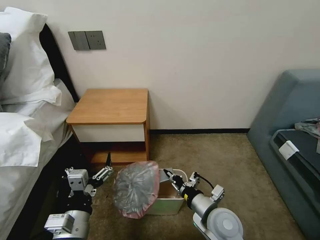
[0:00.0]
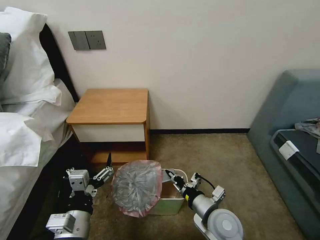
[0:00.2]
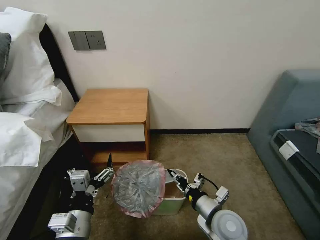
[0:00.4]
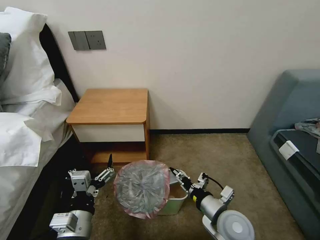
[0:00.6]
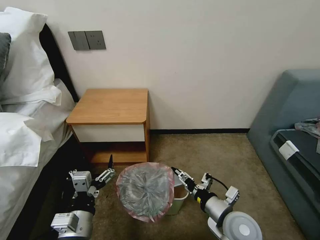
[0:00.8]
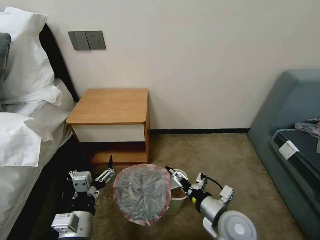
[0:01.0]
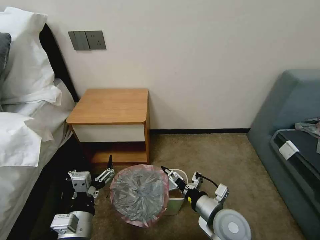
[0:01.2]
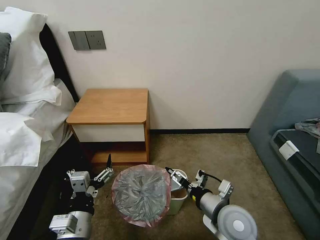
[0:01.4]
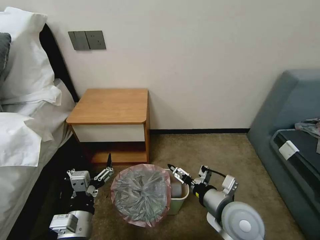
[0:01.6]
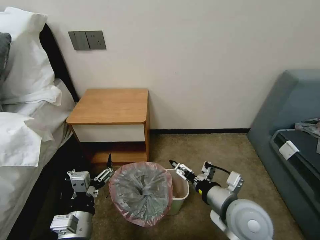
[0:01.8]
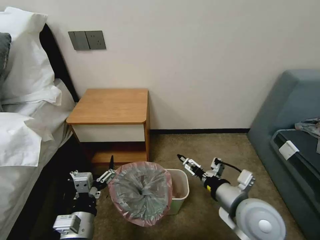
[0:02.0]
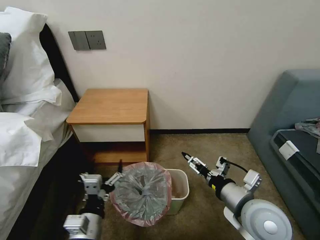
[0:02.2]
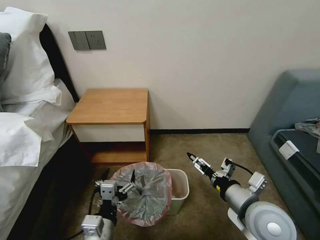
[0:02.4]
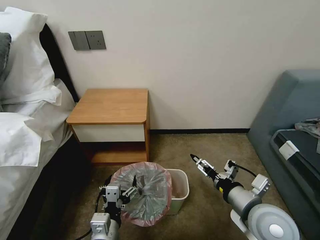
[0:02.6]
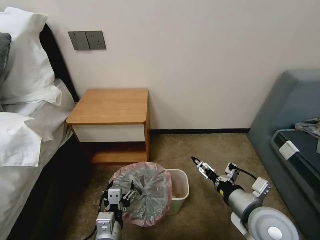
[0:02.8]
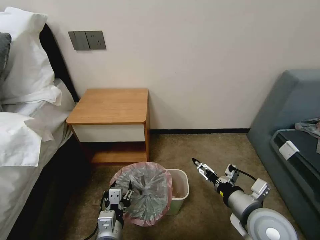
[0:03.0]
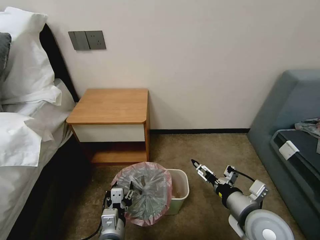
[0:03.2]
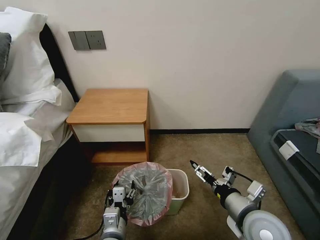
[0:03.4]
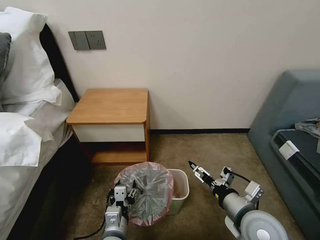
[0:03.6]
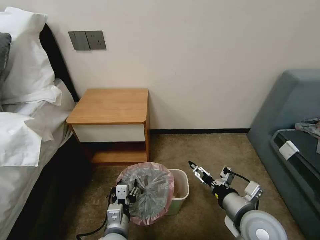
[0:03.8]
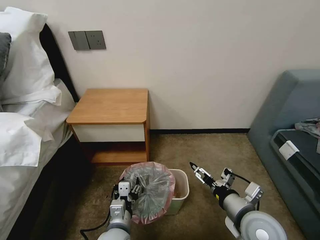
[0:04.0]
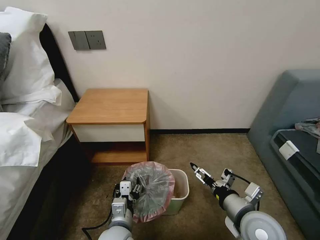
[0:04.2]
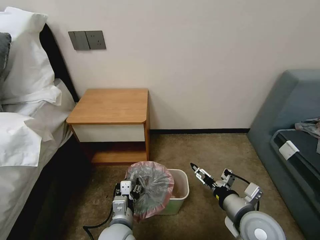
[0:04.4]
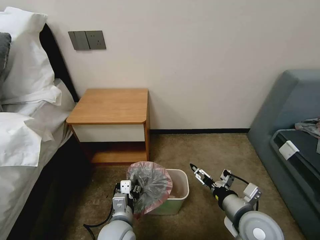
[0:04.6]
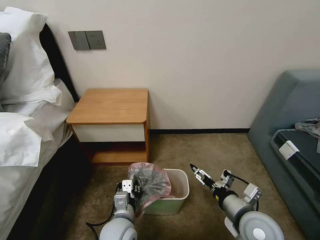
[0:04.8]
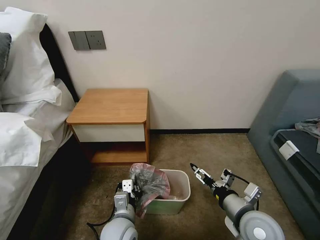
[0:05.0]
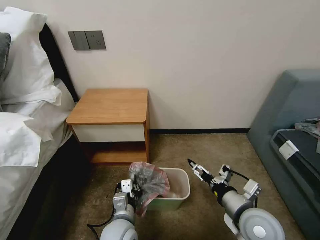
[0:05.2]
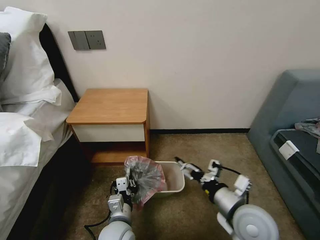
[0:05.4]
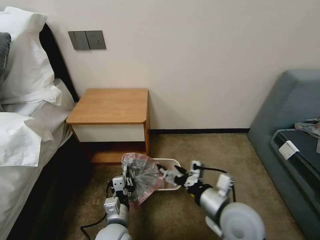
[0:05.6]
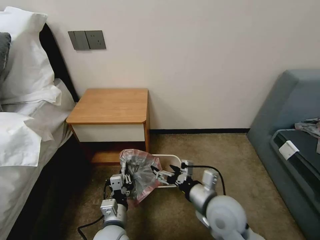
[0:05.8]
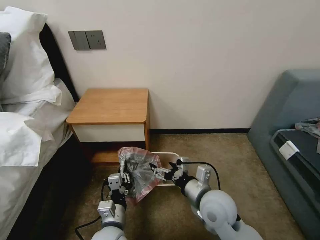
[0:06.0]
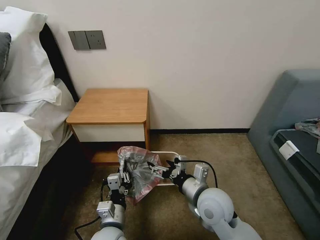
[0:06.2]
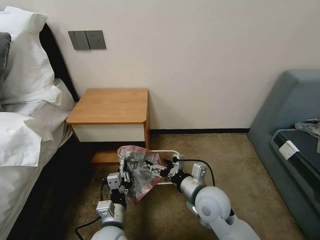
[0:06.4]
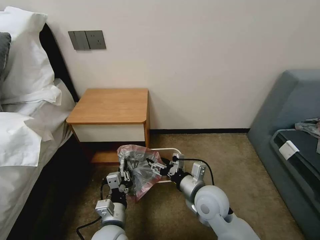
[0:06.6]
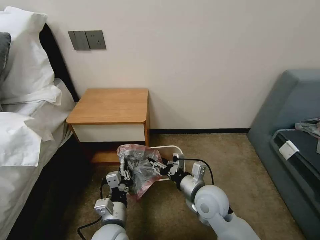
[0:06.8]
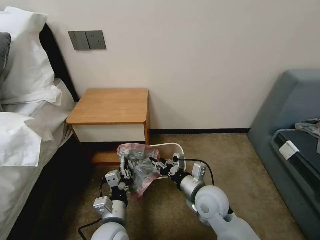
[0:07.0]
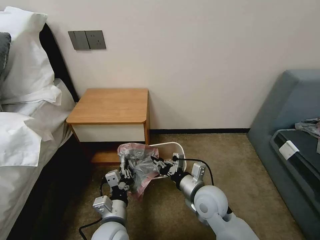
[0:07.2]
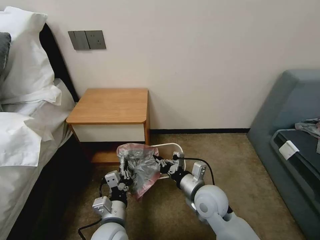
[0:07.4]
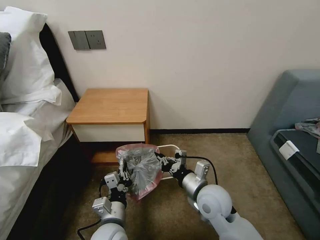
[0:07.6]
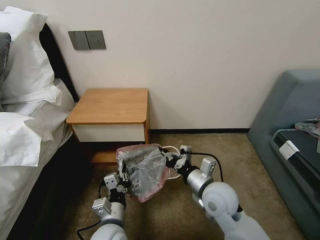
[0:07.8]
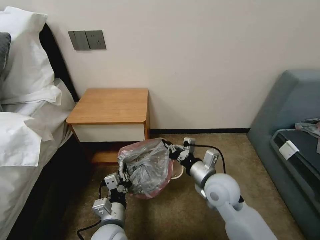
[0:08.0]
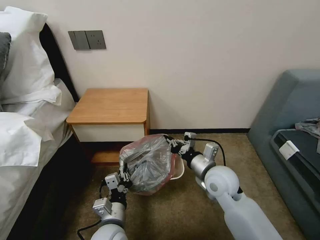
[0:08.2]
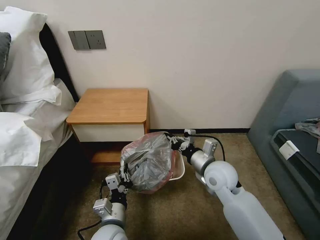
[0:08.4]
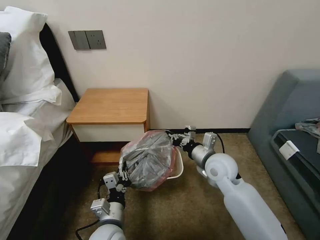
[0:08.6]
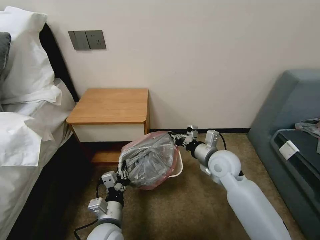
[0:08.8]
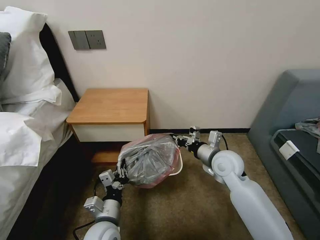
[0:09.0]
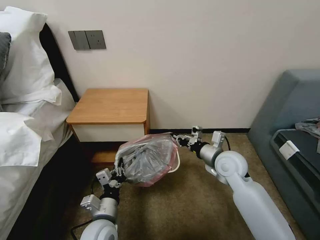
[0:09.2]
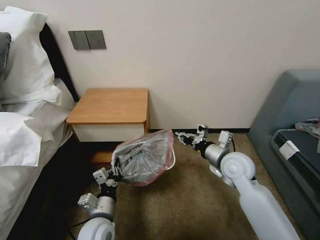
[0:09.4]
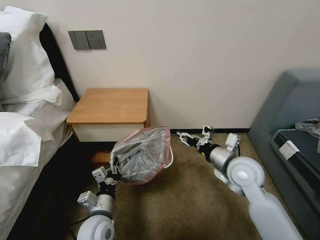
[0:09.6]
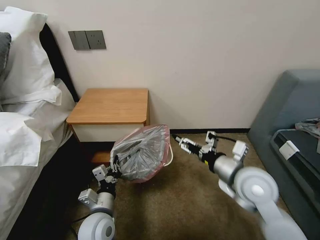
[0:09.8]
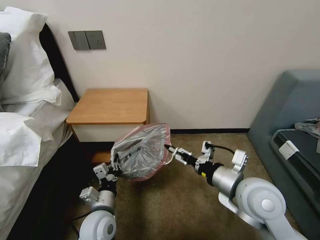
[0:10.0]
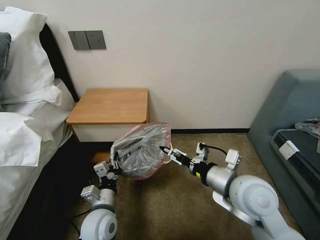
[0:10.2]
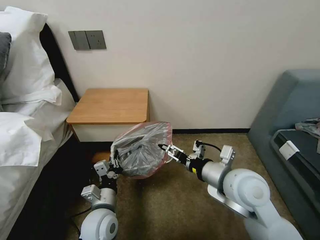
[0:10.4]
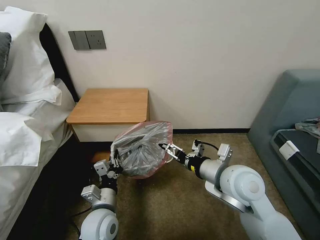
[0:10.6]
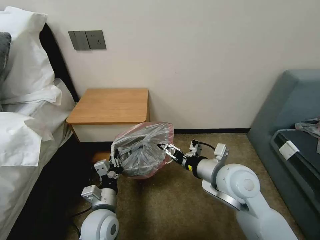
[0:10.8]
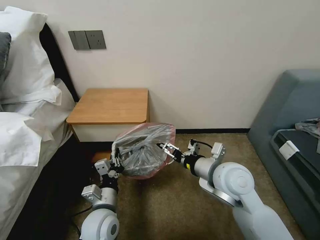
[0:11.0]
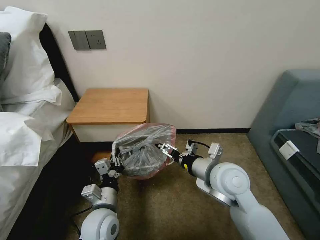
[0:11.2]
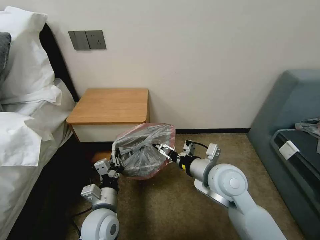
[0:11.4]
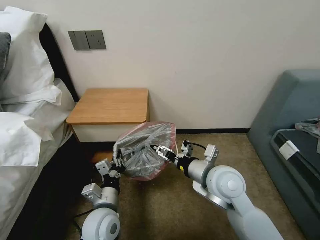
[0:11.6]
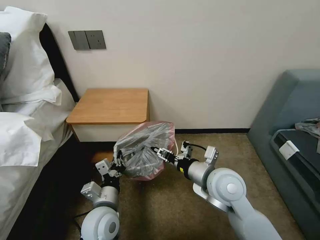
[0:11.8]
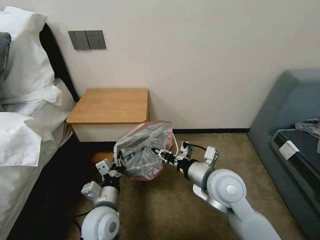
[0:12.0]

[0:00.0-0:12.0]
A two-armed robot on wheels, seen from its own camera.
Task of the whole recording: Pick up the garbage bag from the table and place it over the trash can.
0:00.0 to 0:01.6: The right gripper is displaced upward by approximately 5 cm, and opens.
0:01.6 to 0:03.0: The right gripper travels to the right by approximately 5 cm. The left gripper heads to the right and downward, covering some 10 cm, and closes its fingers.
0:03.0 to 0:04.4: The left gripper shifts by some 5 cm.
0:04.4 to 0:06.0: The right gripper shifts roughly 10 cm to the left and forward; the left gripper closes its fingers.
0:06.0 to 0:07.6: The right gripper closes.
0:07.6 to 0:09.0: The right gripper heads forward and to the right, covering some 10 cm.
0:09.0 to 0:10.4: The right gripper shifts roughly 15 cm backward and upward, and opens up.
0:10.4 to 0:12.0: The right gripper closes.

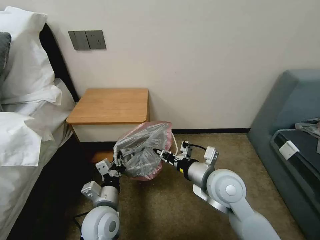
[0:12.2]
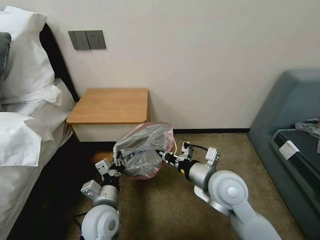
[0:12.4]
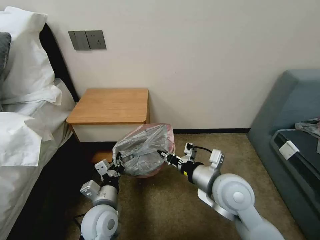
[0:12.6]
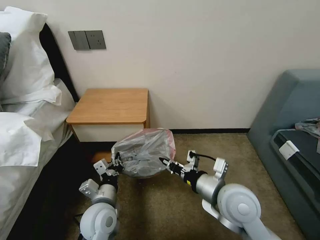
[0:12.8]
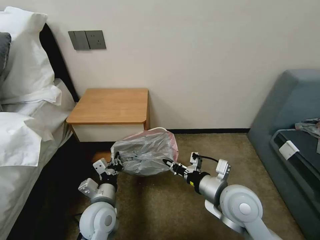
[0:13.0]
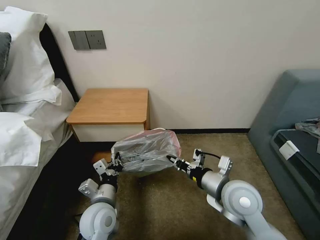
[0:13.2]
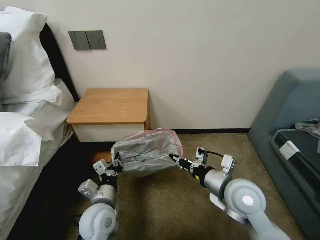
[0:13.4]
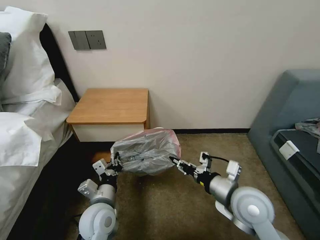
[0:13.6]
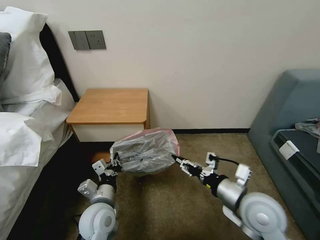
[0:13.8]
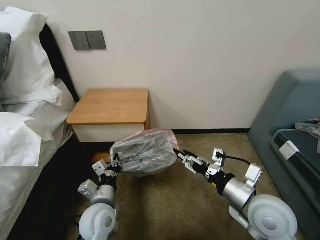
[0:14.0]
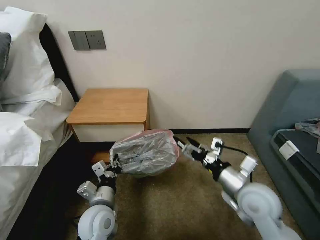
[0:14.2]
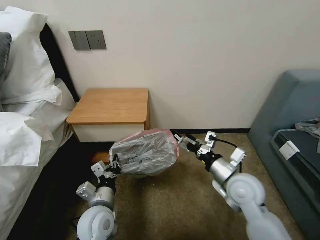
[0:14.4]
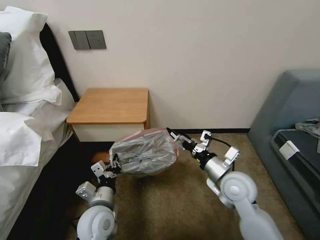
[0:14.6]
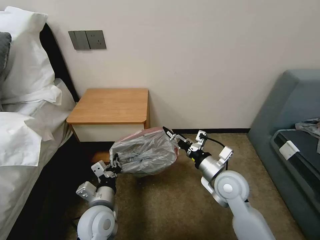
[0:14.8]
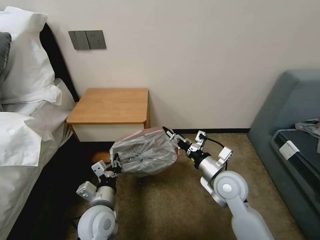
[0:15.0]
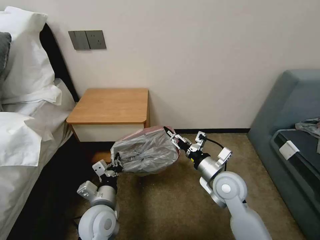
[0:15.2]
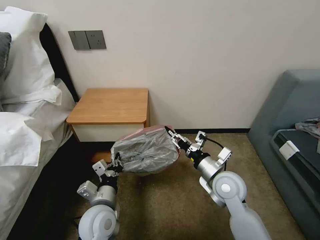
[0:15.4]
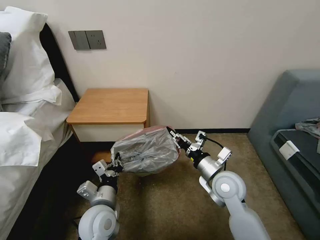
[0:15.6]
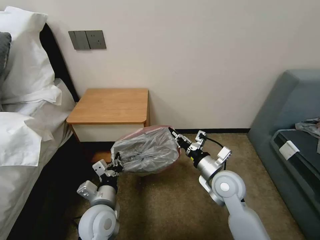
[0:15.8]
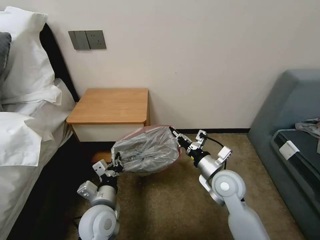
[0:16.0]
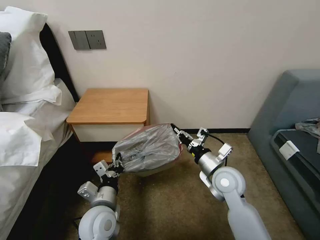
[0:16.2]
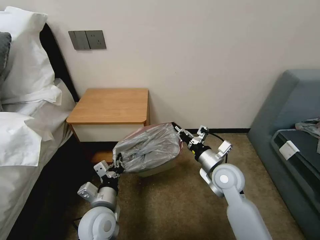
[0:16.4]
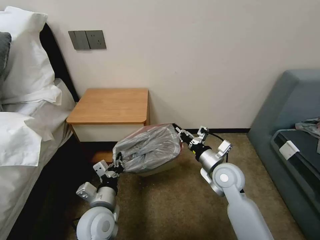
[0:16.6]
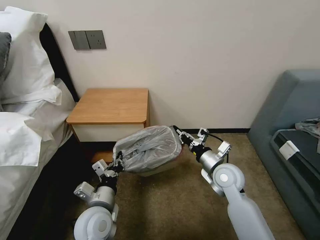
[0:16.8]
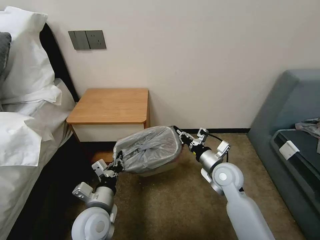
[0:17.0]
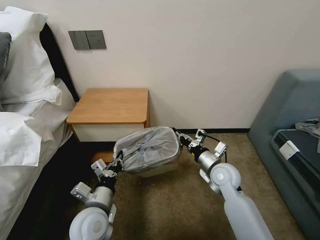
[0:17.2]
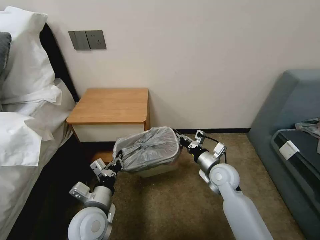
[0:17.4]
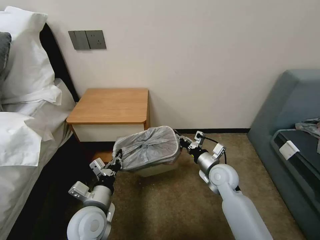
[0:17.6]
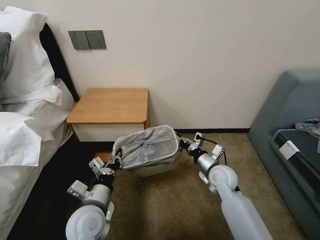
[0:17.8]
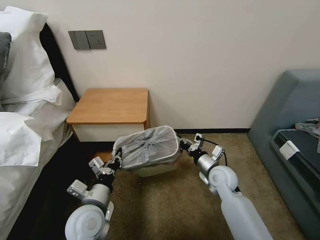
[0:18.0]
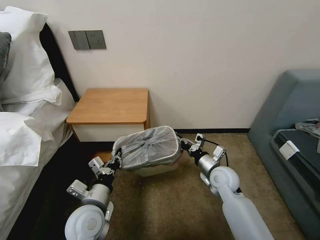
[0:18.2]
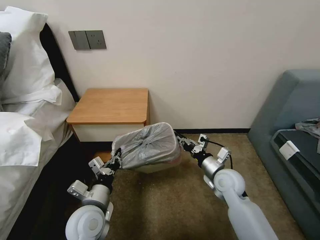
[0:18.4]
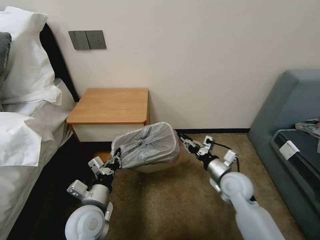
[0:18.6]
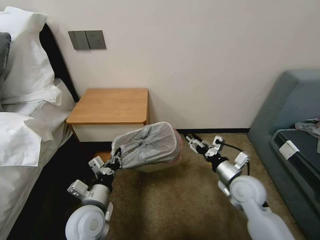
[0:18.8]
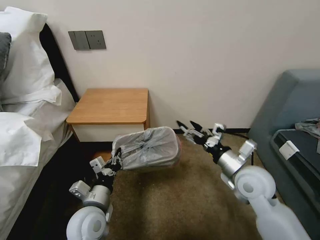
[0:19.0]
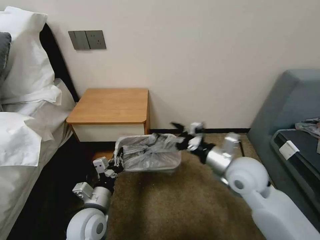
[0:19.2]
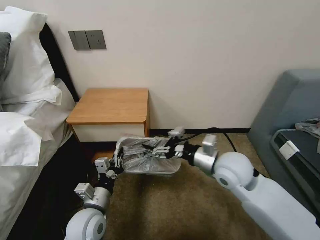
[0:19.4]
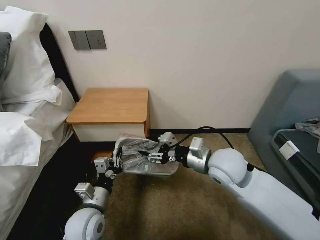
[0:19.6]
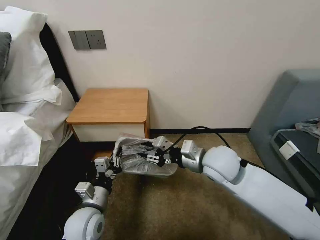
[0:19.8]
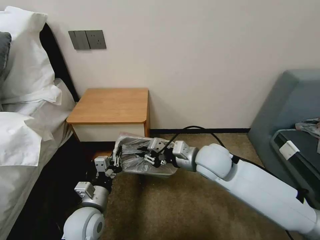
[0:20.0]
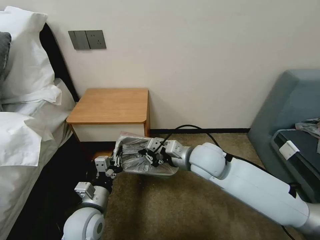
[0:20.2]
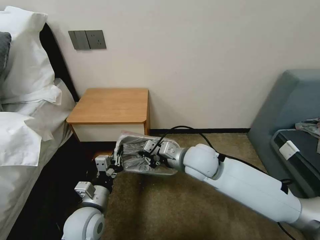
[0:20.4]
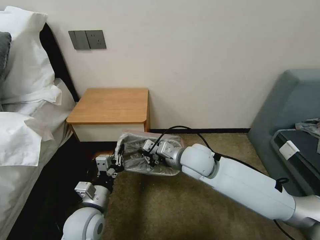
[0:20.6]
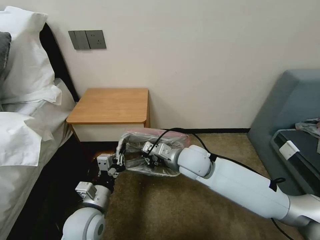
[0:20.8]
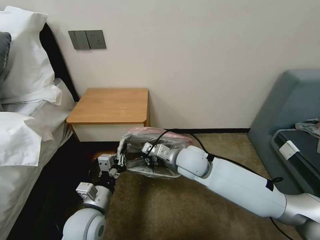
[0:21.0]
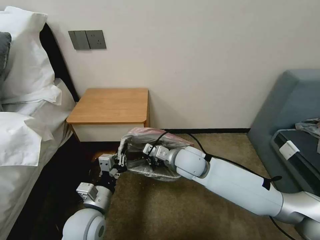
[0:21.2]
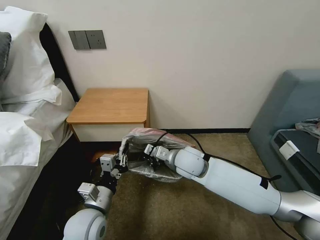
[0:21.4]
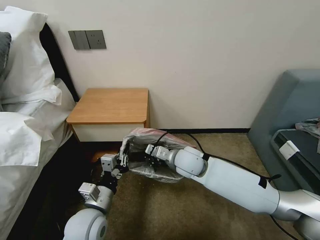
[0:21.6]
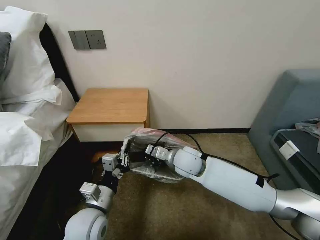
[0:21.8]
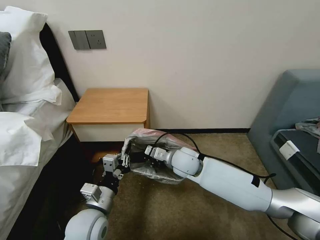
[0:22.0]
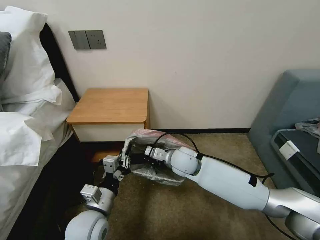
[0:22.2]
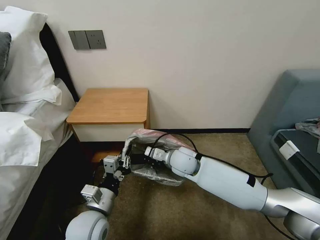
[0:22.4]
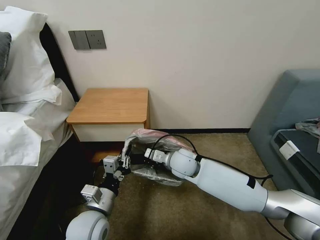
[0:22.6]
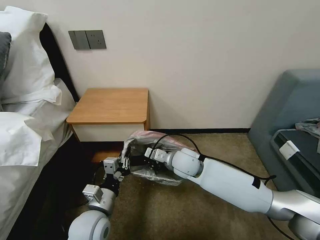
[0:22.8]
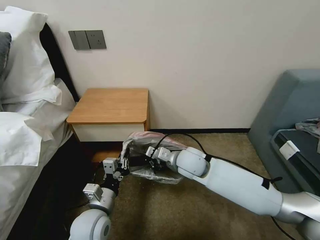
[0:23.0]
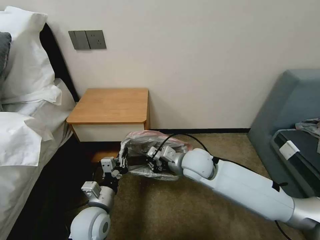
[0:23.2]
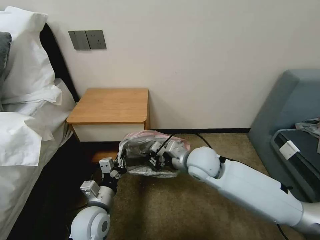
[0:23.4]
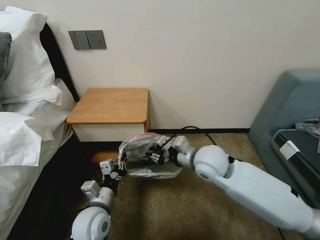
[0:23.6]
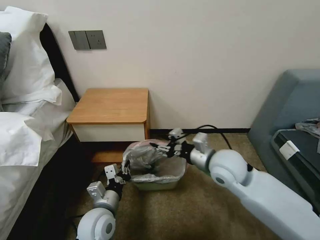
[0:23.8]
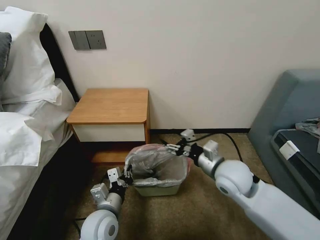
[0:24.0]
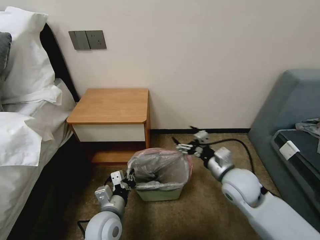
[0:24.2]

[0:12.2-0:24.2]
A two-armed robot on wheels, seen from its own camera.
Task of the whole recording: Pick up the garbage bag from the table and place it over the trash can.
0:12.2 to 0:13.8: The right gripper travels to the right and backward by about 10 cm, and opens up.
0:13.8 to 0:15.2: The right gripper moves forward, some 10 cm.
0:15.2 to 0:16.6: The right gripper closes up.
0:16.6 to 0:18.2: The right gripper travels downward by some 5 cm.
0:18.2 to 0:19.8: The right gripper moves upward and to the left, about 15 cm, and opens and closes again.
0:19.8 to 0:21.2: The right gripper travels to the left by roughly 5 cm, and closes up.
0:21.2 to 0:22.6: The right gripper ends up approximately 5 cm from where it was.
0:22.6 to 0:24.2: The right gripper shifts approximately 20 cm to the right and backward, and opens.
